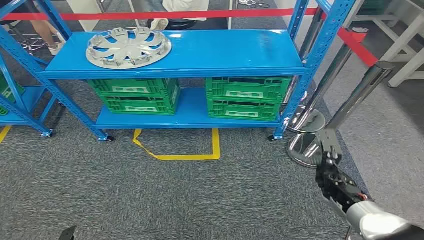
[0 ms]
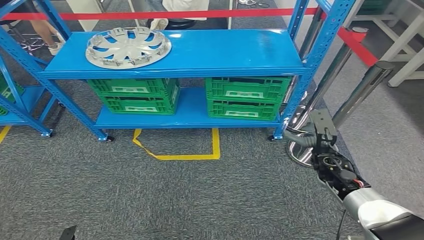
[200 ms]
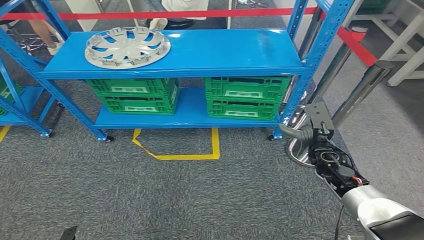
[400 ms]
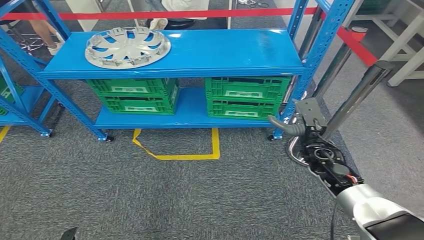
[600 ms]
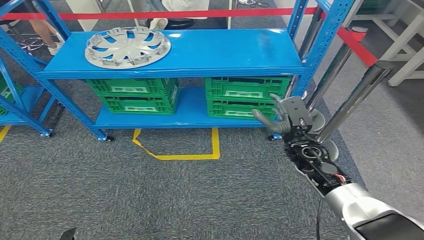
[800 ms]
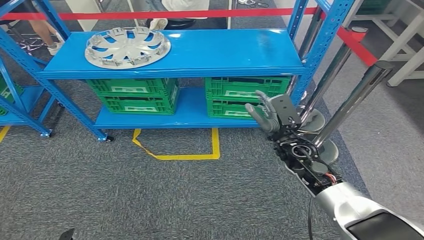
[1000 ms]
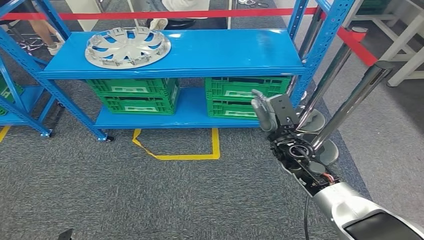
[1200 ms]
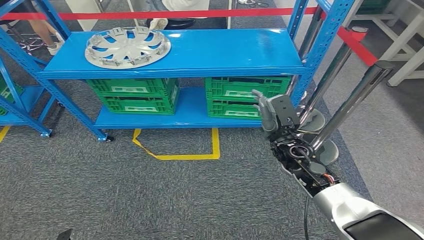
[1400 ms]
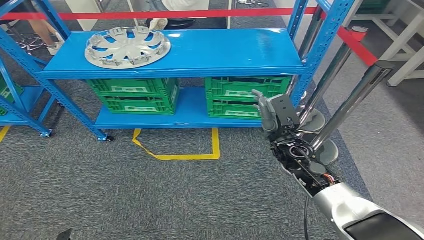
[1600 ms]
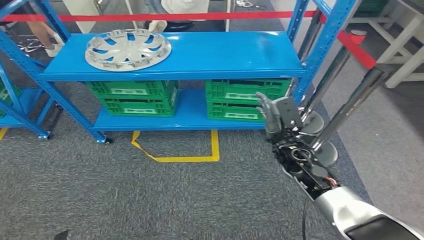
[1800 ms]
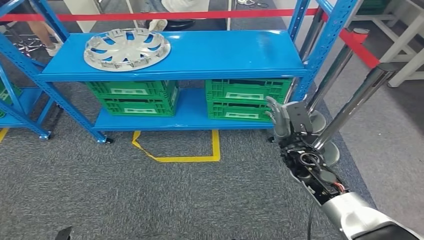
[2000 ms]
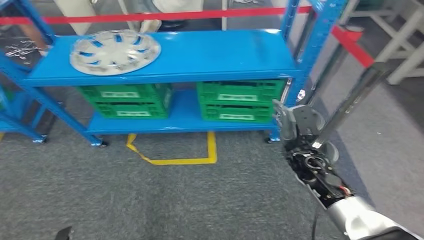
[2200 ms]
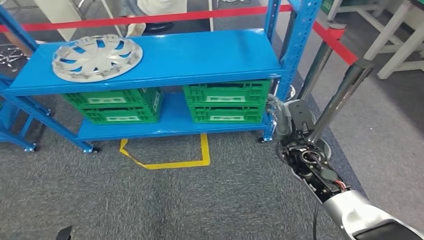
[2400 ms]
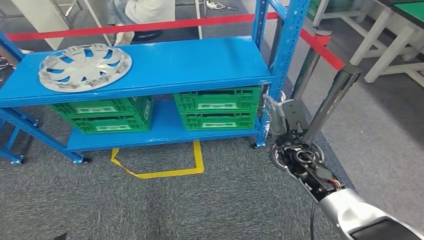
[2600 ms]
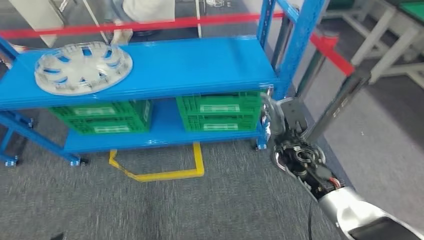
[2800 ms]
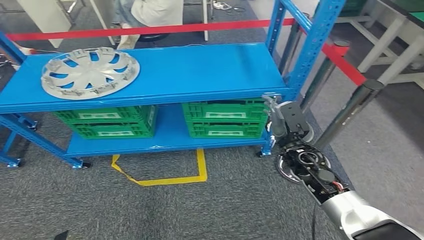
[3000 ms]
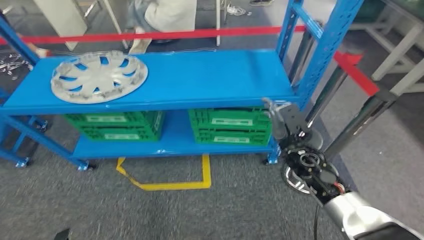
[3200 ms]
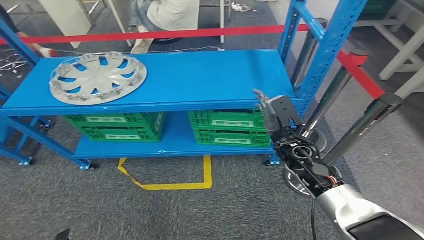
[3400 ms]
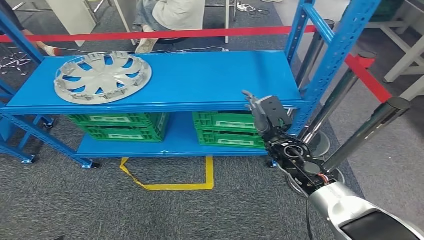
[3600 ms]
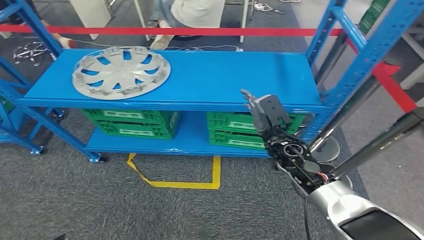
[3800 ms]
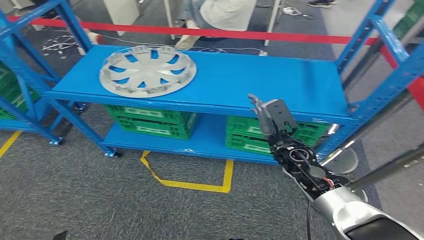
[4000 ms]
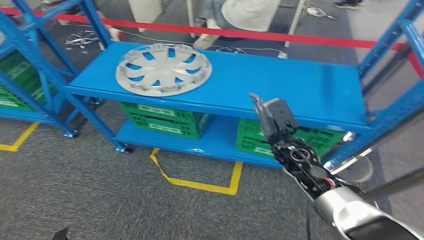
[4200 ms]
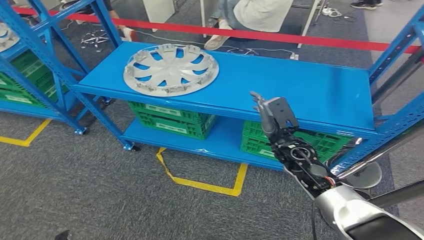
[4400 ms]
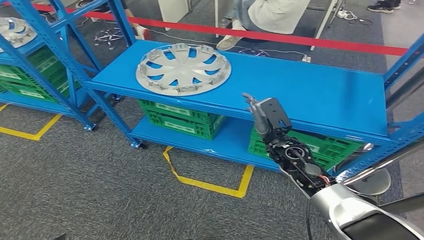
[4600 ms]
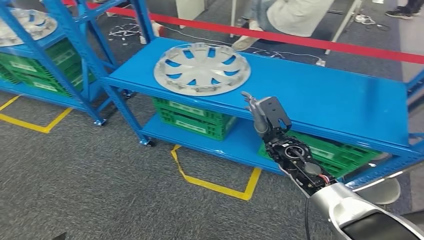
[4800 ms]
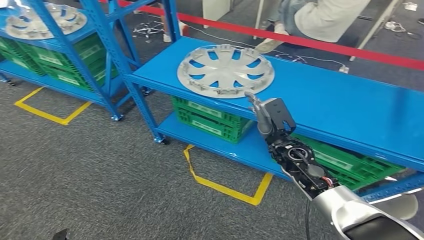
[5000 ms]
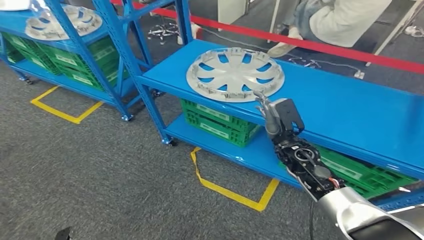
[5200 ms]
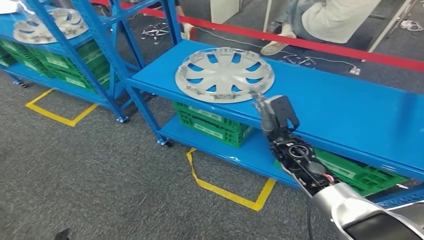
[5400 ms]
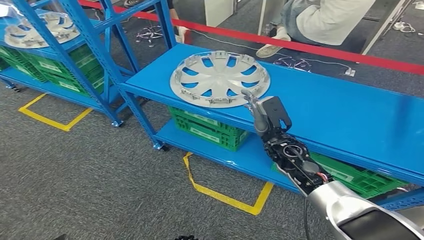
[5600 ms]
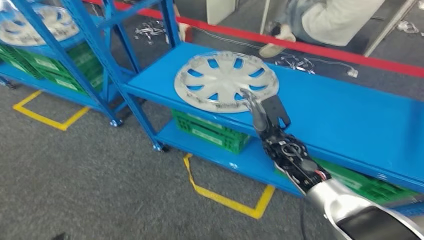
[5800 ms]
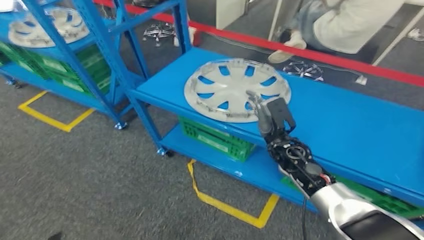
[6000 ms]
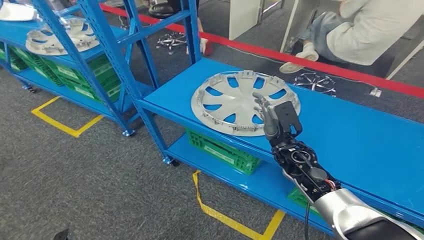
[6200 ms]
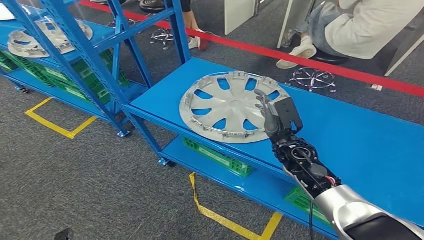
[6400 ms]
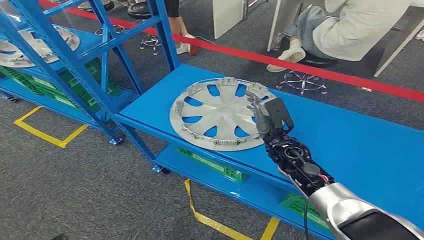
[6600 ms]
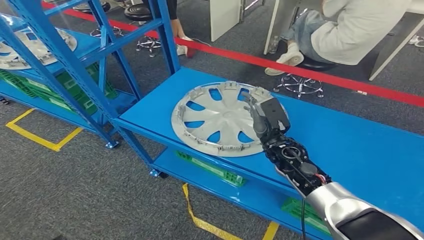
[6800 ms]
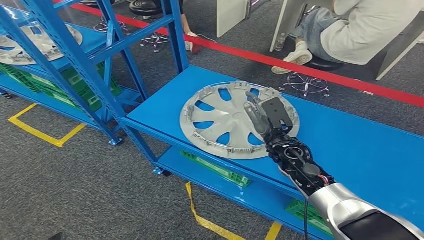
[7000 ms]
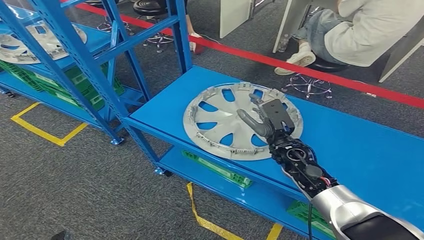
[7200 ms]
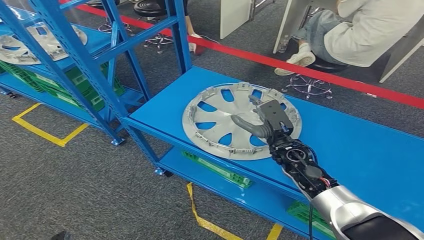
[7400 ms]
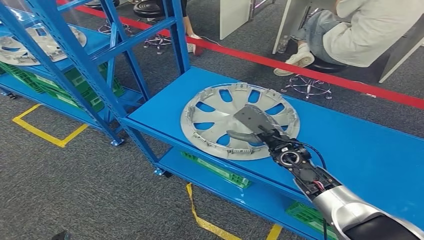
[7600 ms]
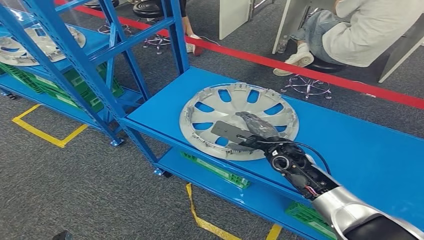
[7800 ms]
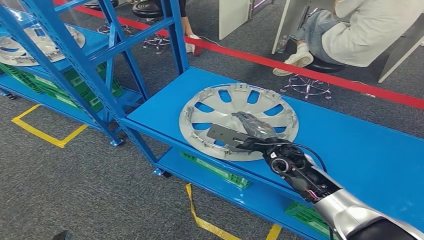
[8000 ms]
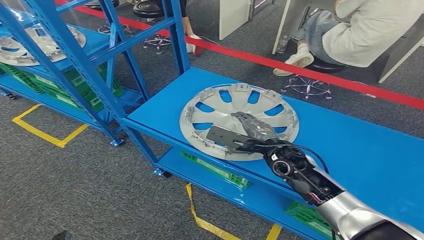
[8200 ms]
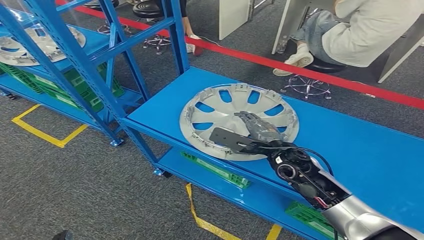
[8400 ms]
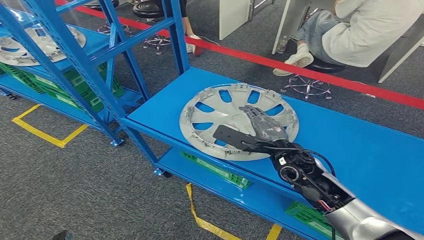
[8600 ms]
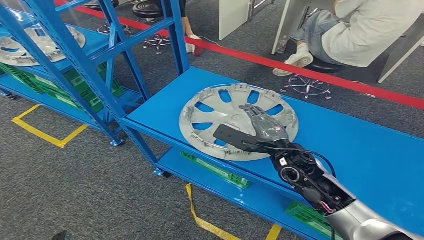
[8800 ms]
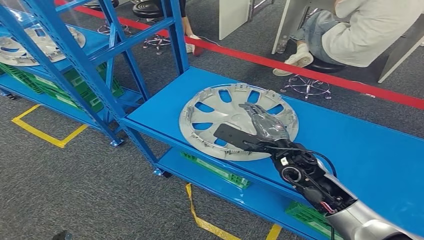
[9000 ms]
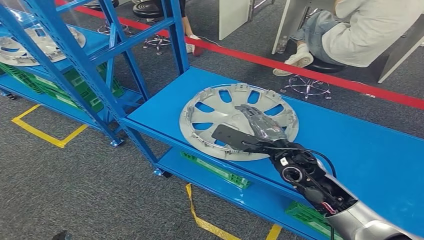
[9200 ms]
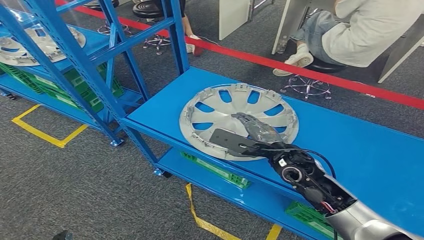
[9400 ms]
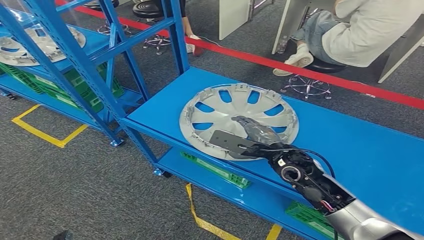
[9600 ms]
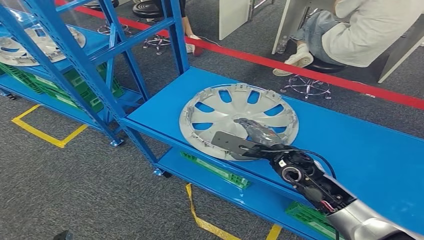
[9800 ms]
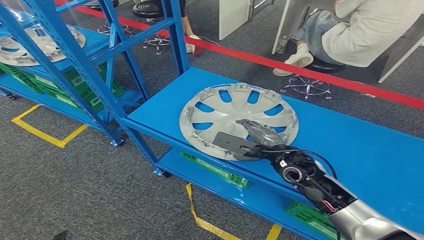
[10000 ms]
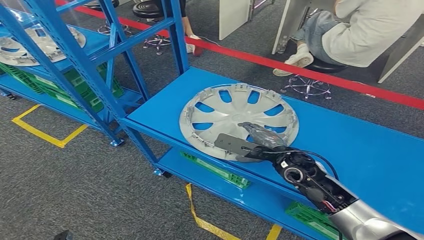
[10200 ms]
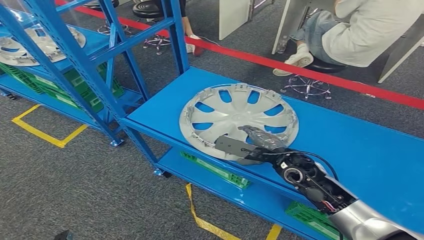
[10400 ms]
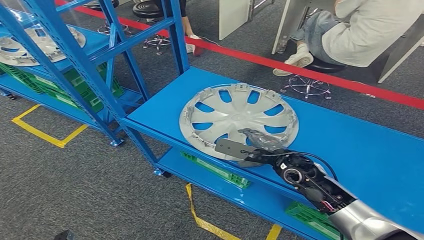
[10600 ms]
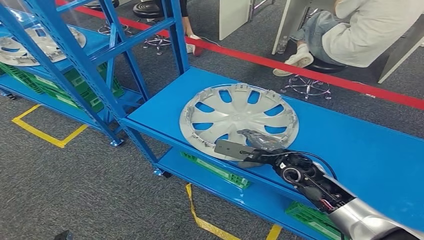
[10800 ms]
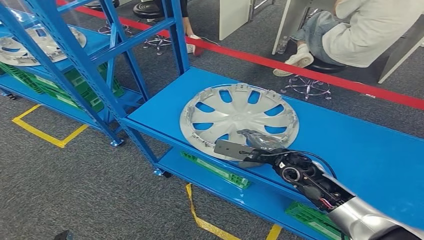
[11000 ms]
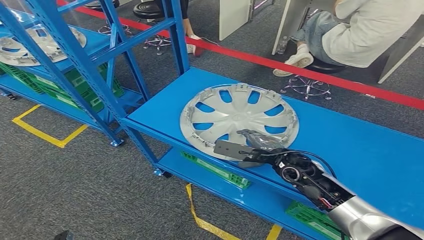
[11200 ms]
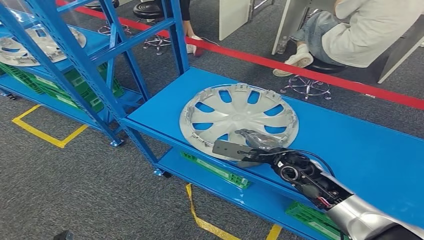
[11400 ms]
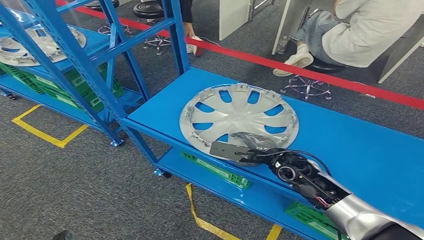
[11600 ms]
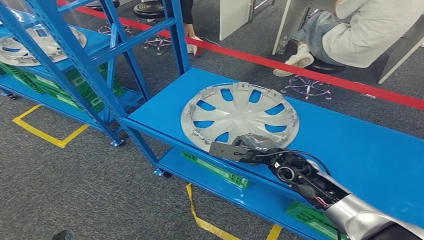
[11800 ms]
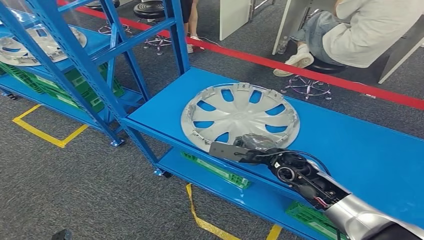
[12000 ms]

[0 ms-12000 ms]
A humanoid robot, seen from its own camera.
7600 ms to 9000 ms: The right hand changes place by some 5 cm.
10400 ms to 12000 ms: The hands make only small movements.

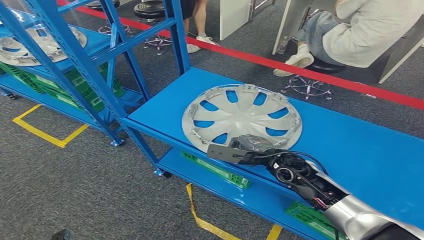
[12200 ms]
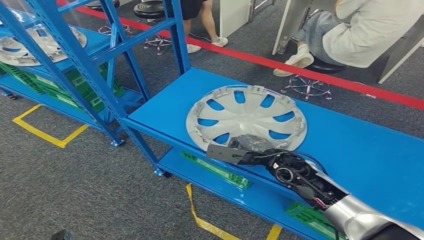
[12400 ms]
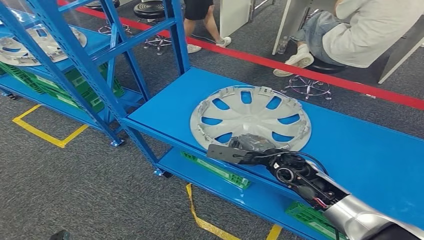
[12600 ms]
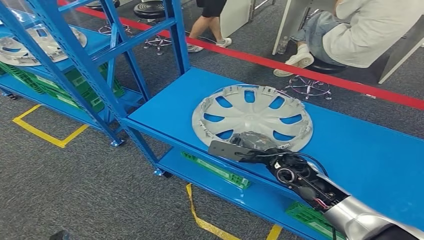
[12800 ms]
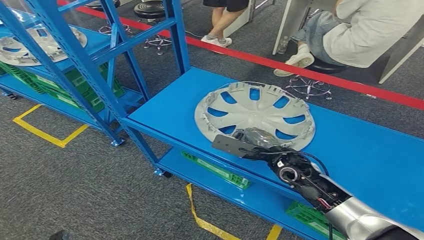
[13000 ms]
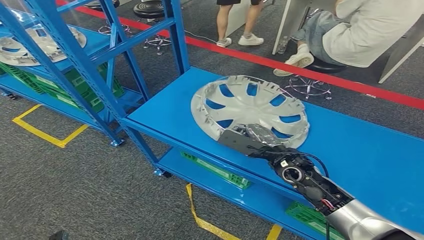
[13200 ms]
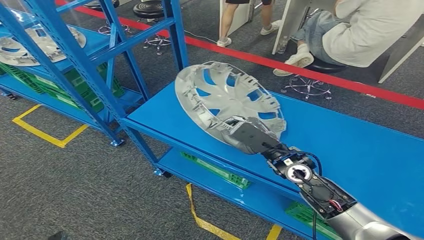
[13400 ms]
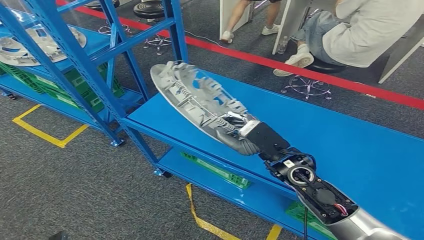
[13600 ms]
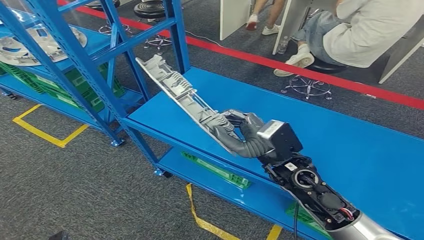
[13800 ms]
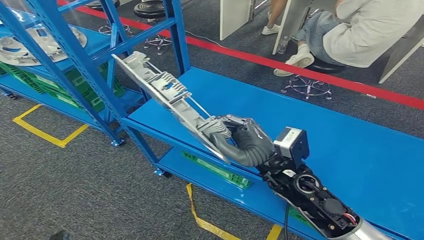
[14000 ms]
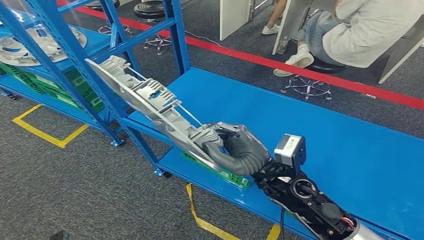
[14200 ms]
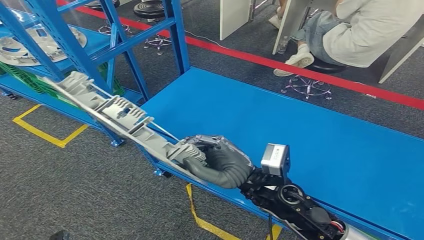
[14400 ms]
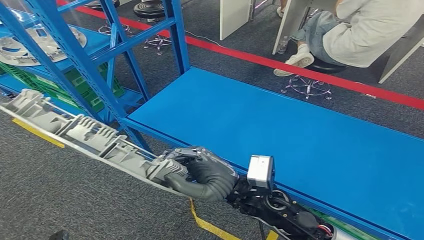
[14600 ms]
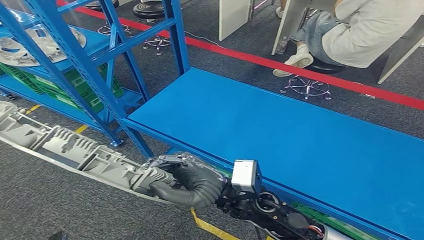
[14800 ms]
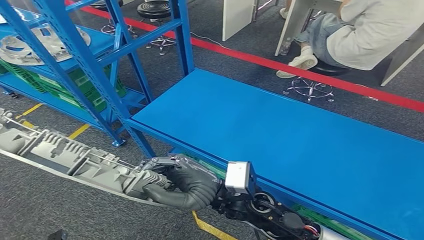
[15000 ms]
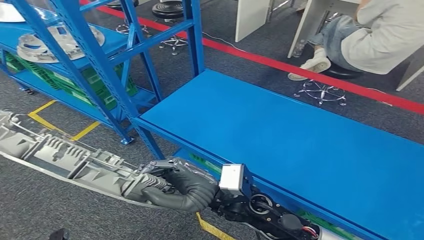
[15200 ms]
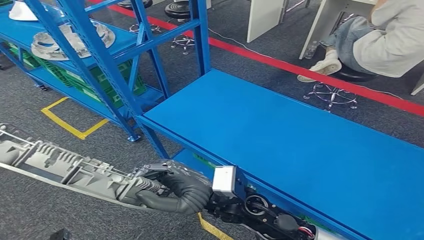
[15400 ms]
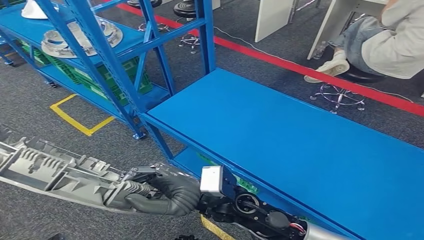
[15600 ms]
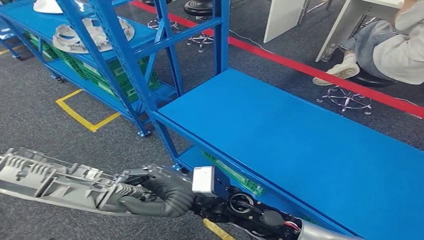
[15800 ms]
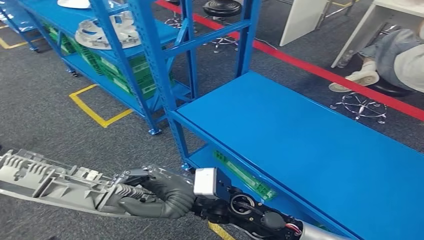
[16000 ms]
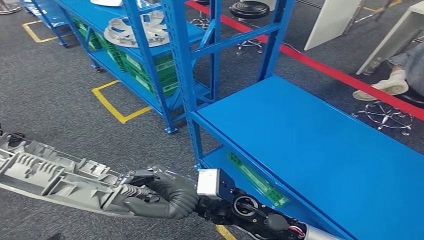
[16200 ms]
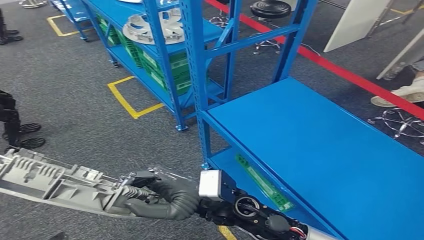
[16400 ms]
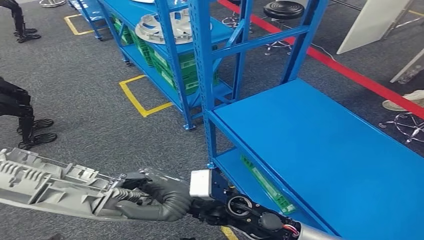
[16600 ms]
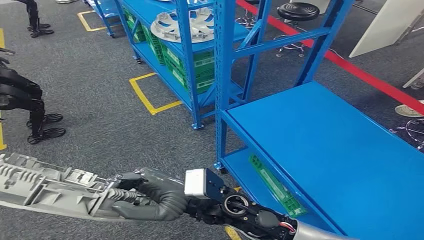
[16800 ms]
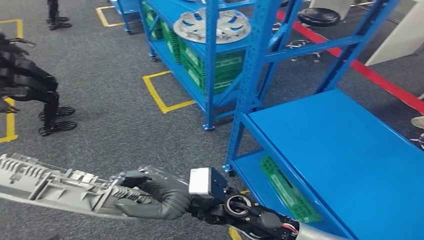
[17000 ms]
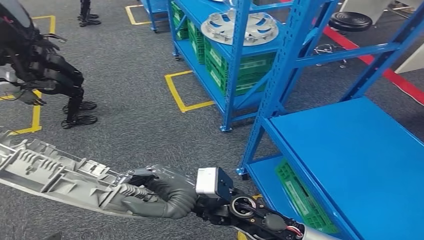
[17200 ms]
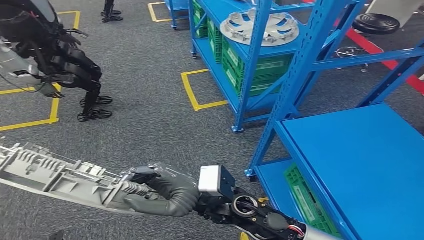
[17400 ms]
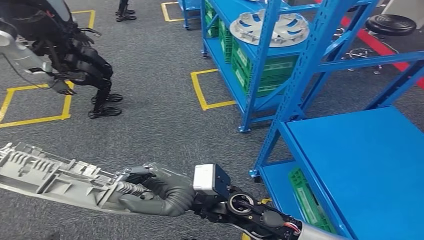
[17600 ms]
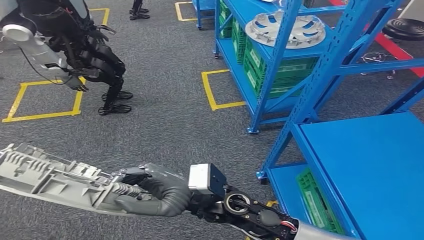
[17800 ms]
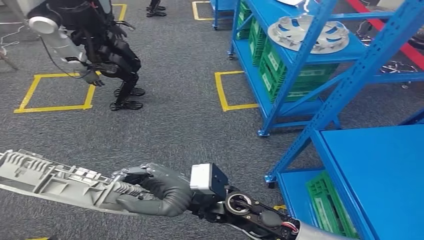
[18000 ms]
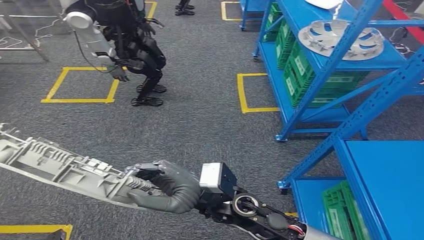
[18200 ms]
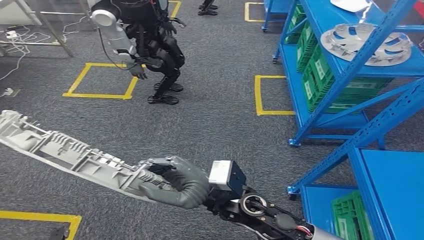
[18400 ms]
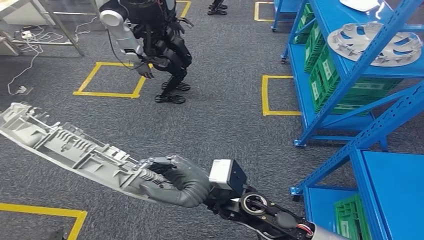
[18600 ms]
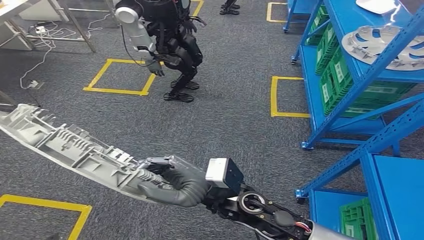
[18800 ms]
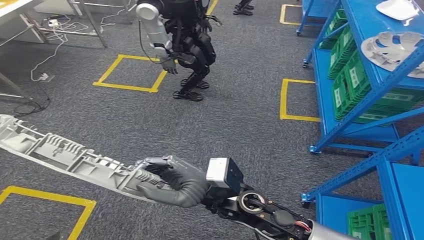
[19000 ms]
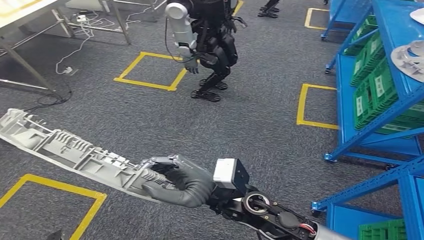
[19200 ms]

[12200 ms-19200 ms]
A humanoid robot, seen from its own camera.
Step, 12200 ms to 15800 ms: Pick up the small component from the shelf.
12200 ms to 13600 ms: The right hand is displaced upward by roughly 5 cm.
